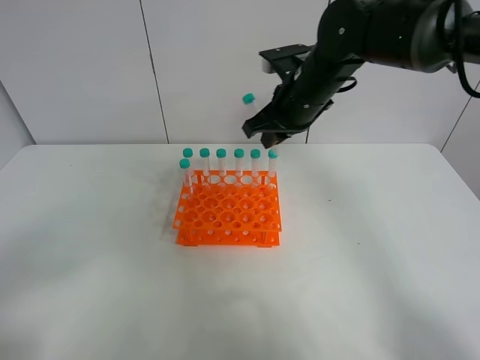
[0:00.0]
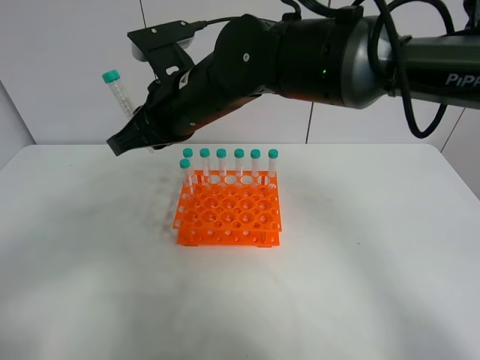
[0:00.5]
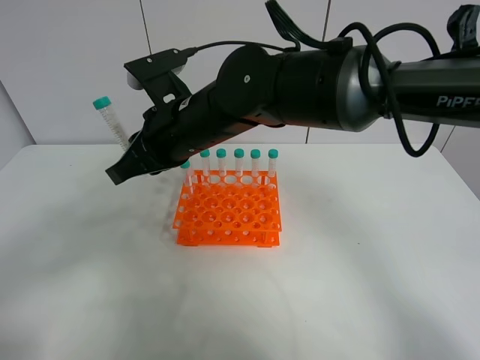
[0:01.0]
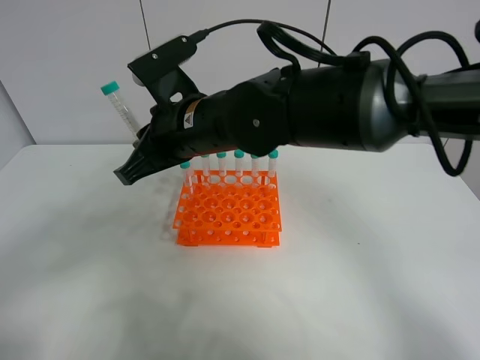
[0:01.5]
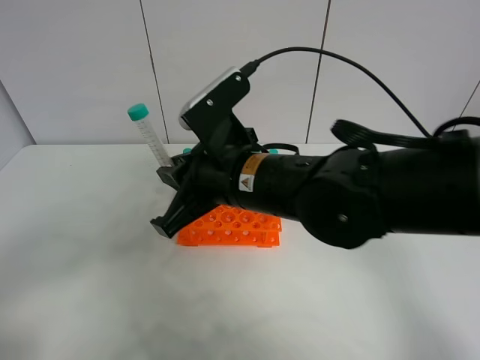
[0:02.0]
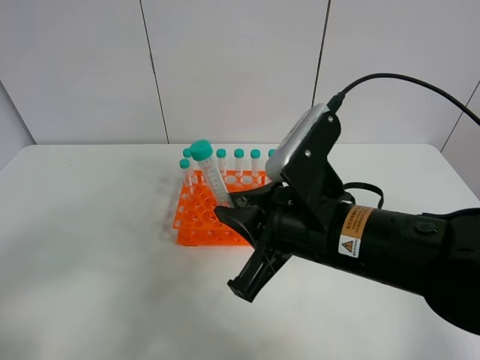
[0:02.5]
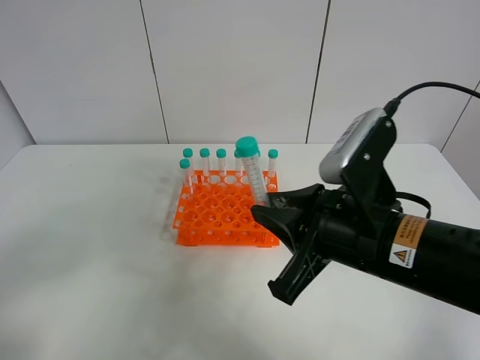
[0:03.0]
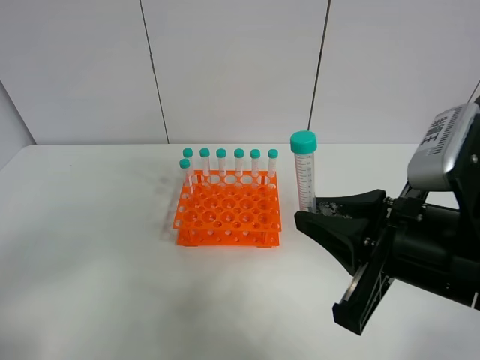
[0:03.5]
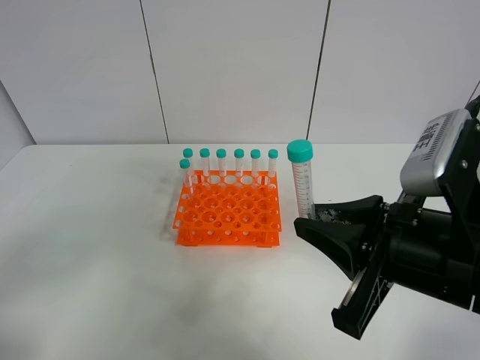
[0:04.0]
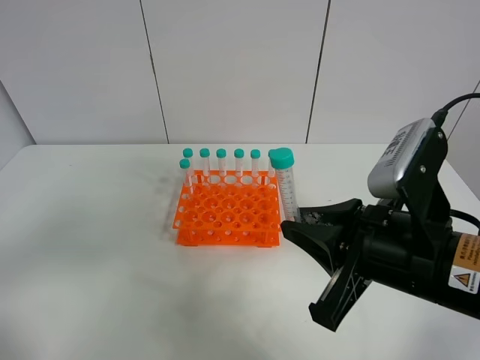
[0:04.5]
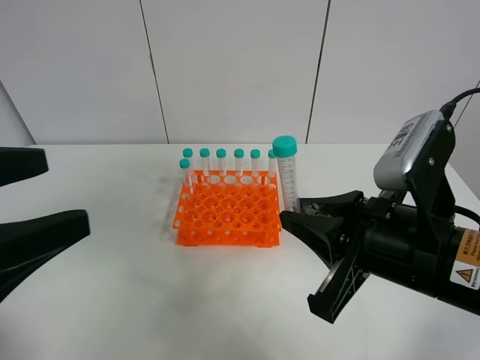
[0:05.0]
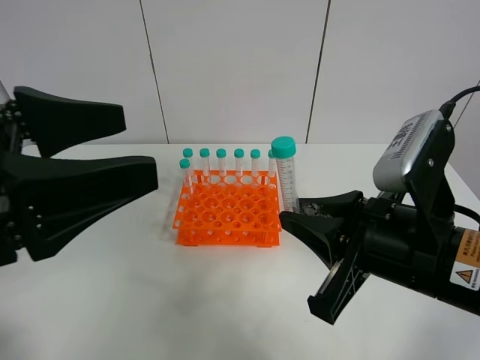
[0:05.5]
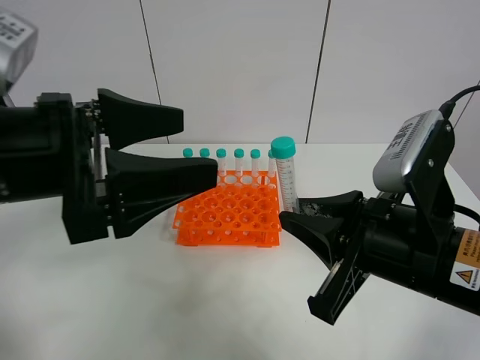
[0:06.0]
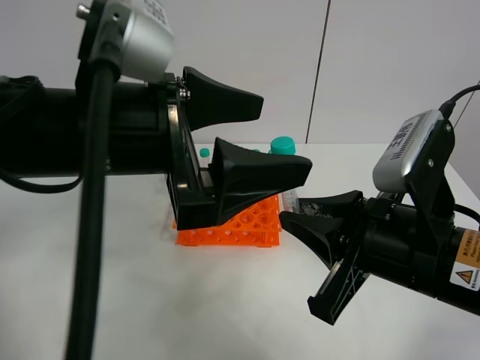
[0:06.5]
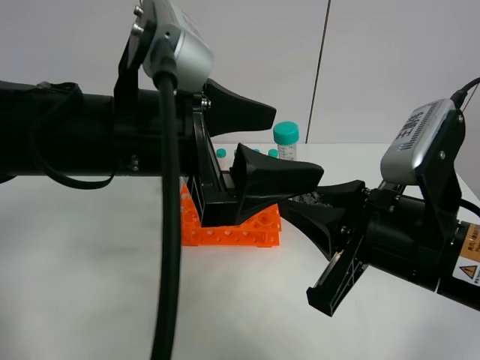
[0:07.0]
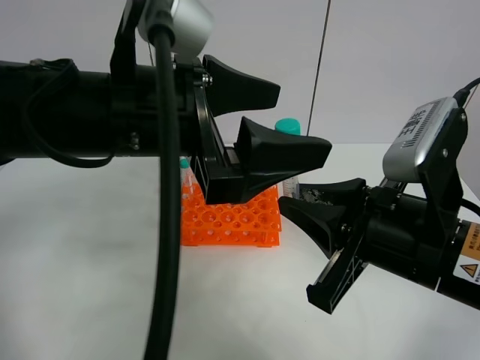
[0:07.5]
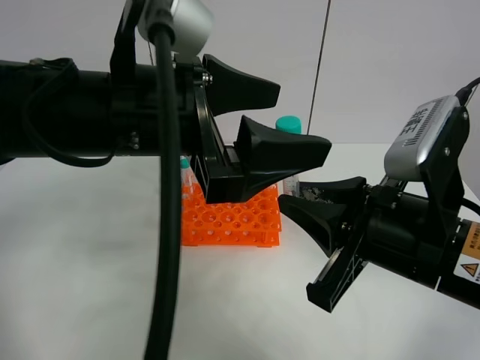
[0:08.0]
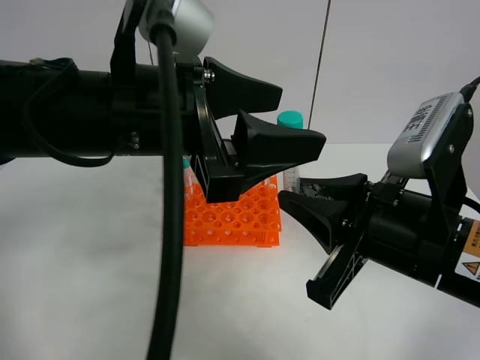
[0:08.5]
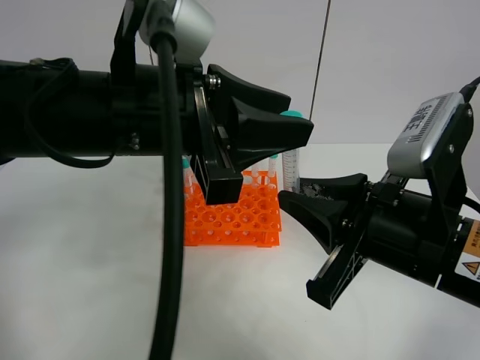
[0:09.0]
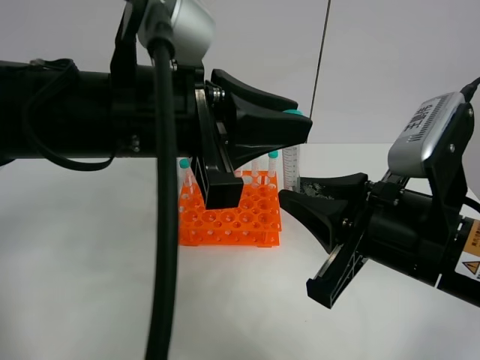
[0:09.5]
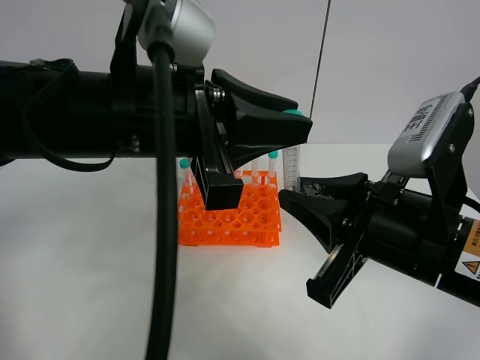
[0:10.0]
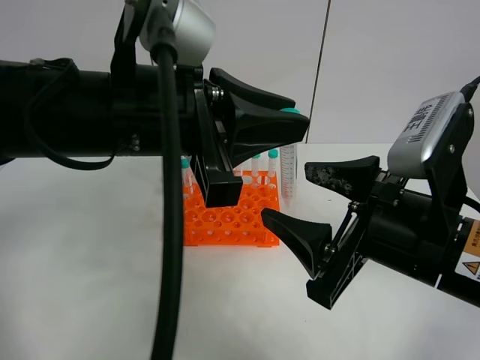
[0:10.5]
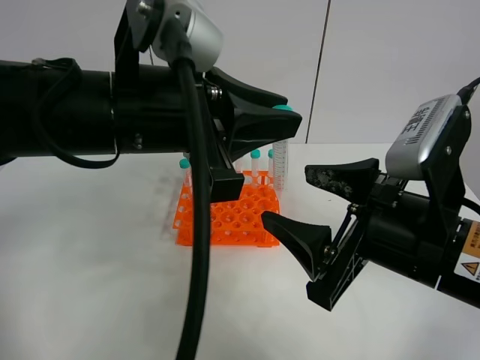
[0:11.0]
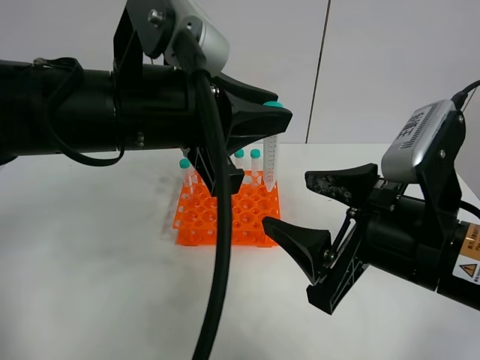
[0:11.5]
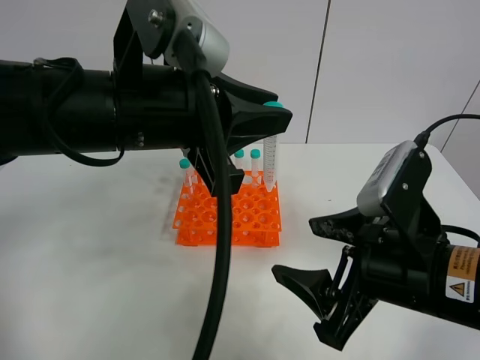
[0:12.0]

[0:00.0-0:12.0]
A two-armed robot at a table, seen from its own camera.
Task of the whole recording: Put the test tube on the table back onto the test tube rack.
Step, 0.0 to 11.5 s: Move the test tube from the right gripper to the left gripper.
0.0 to 2.0 s: The right gripper goes about 15 cm backward and to the left.
2.0 to 4.0 s: The right gripper is displaced to the right and backward by roughly 20 cm.
4.0 to 6.0 s: The left gripper moves forward and to the right, roughly 20 cm.
6.0 to 8.0 s: The left gripper goes approximately 10 cm to the right.
8.0 to 10.0 s: The left gripper closes its fingers.
10.0 to 12.0 s: The right gripper opens up.

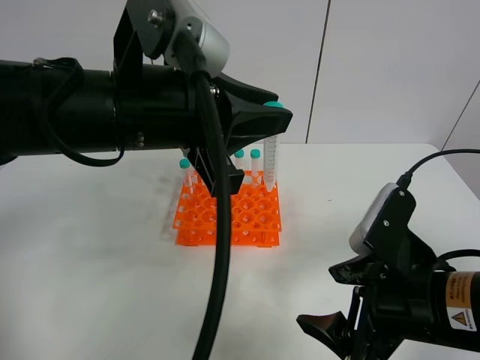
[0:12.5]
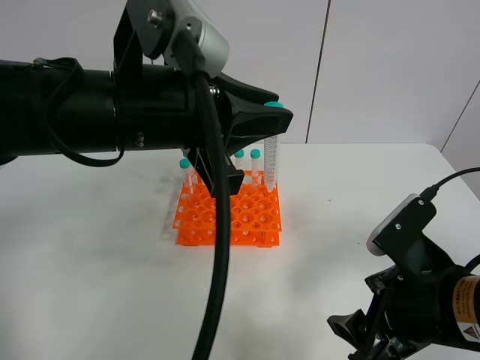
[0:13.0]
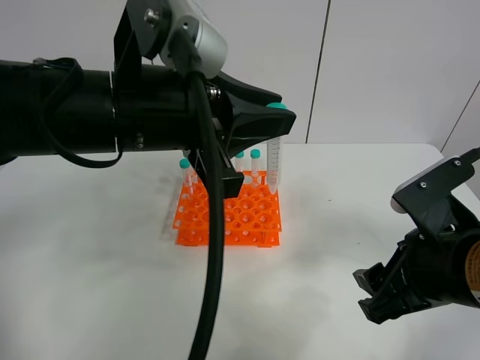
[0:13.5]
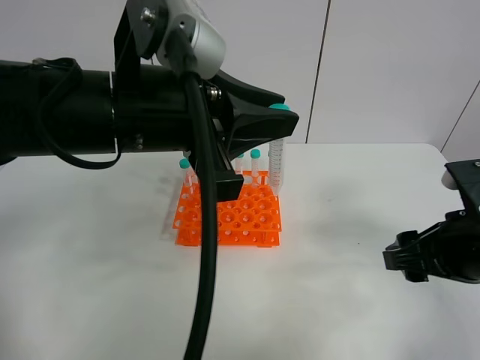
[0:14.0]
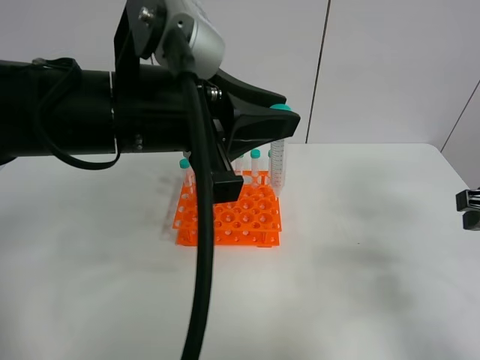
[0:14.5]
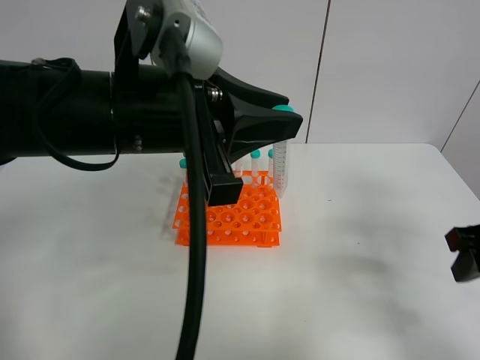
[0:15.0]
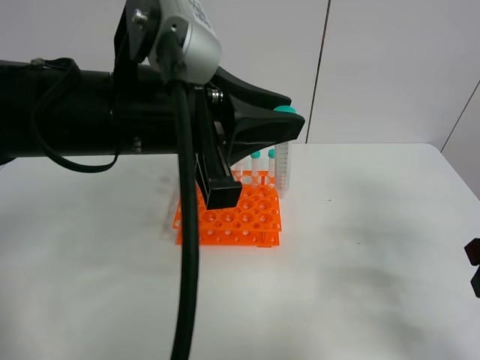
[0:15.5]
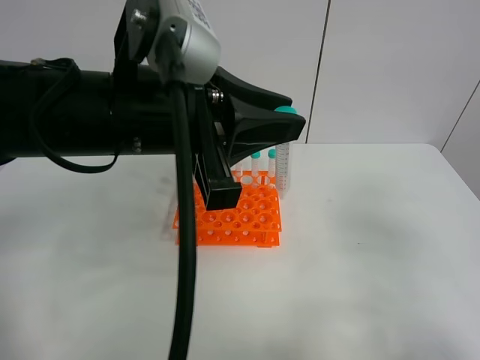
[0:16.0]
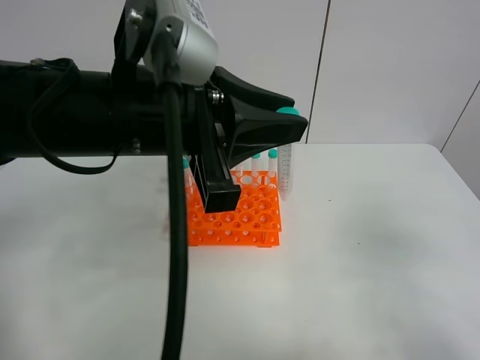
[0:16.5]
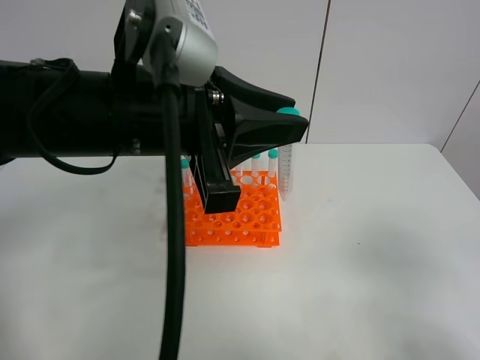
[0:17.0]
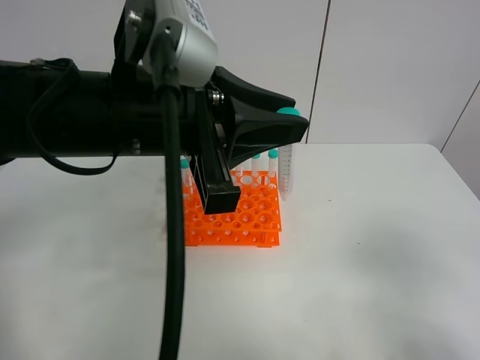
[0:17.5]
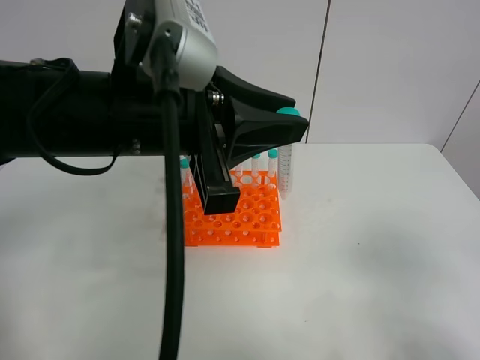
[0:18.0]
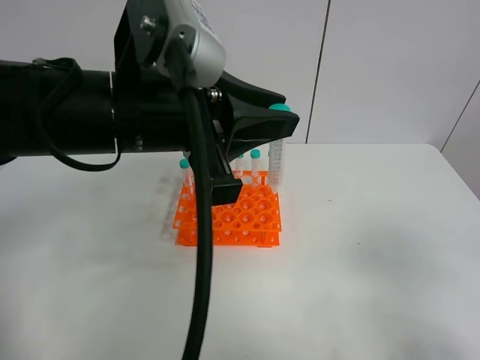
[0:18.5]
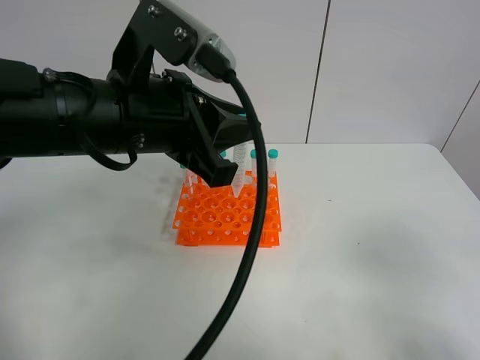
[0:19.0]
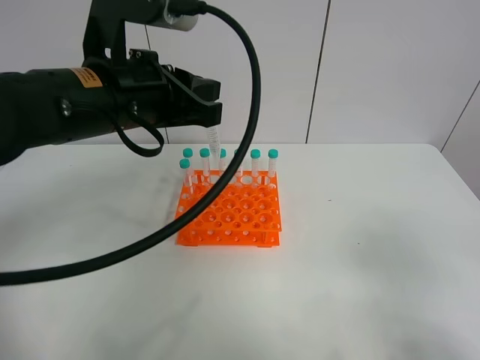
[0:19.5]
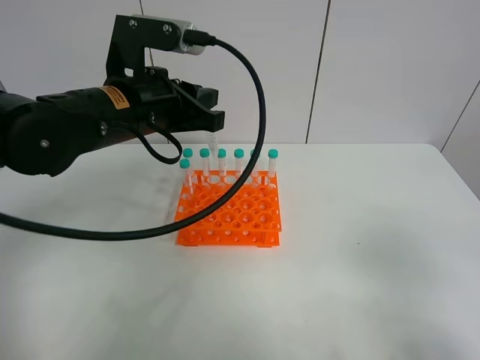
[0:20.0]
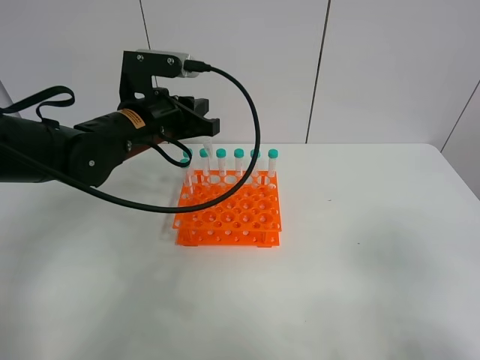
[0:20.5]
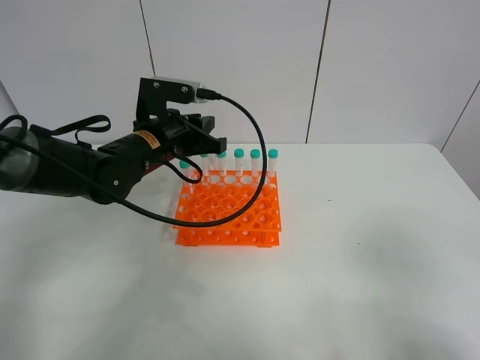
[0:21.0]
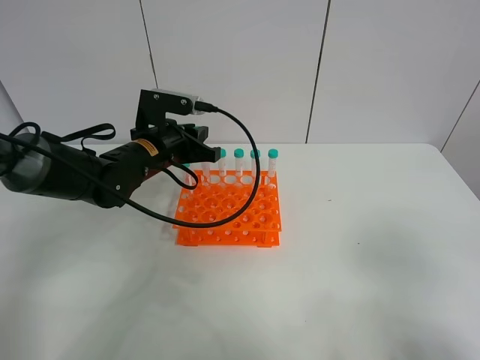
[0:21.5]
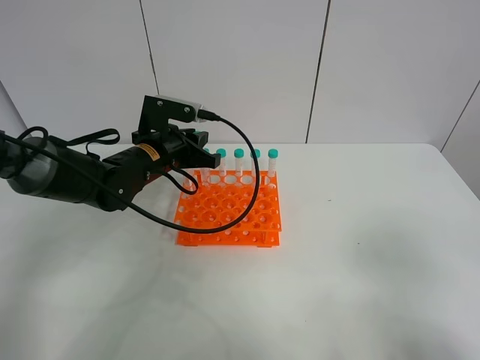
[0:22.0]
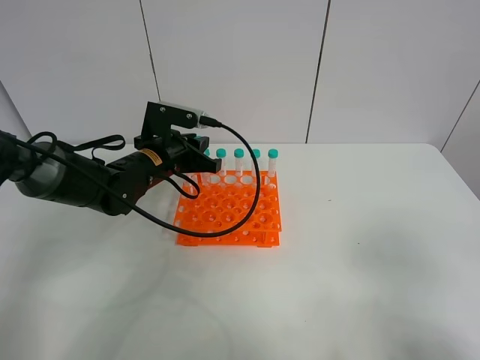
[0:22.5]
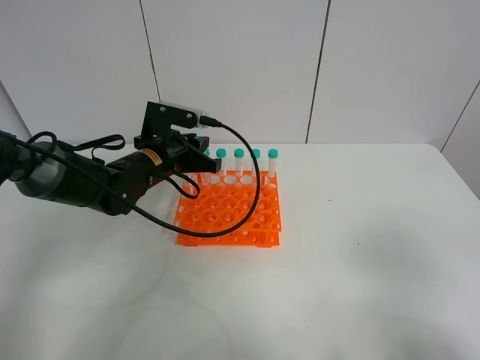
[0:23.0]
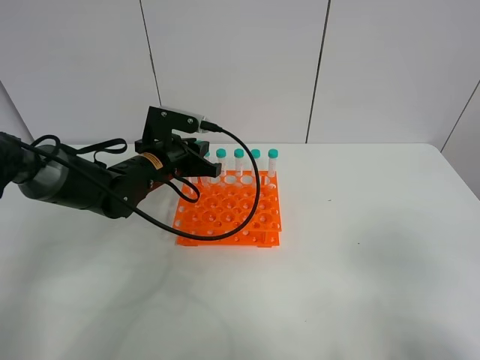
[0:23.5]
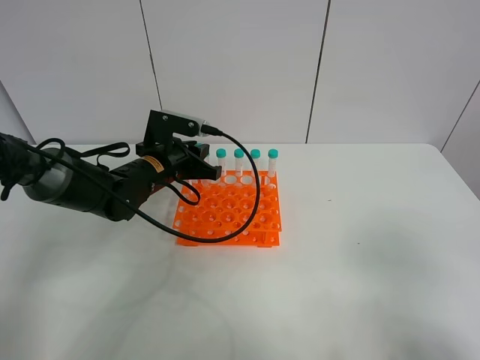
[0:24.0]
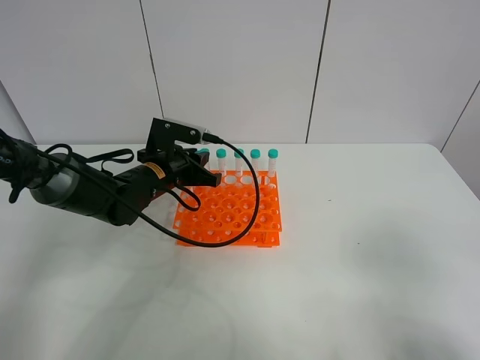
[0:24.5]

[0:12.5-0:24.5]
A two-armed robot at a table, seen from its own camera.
Task of the whole recording: Put the test tube on the table back onto the test tube rack.
12.5 to 14.5 s: The right gripper is displaced to the right, forward and upward by roughly 15 cm.
14.5 to 16.5 s: The right gripper travels backward by approximately 15 cm.
16.5 to 18.5 s: The grippers move only a little.
18.5 to 20.5 s: The left gripper moves forward and downward, roughly 15 cm.
20.5 to 22.5 s: The left gripper travels downward by about 5 cm.
22.5 to 24.5 s: The grippers move only a little.

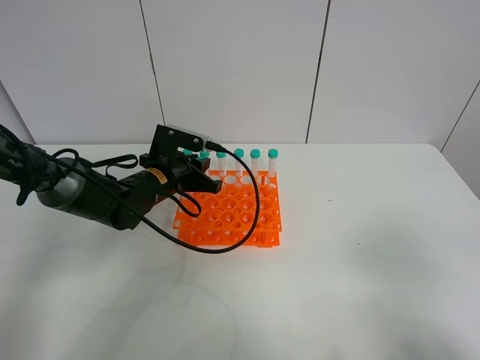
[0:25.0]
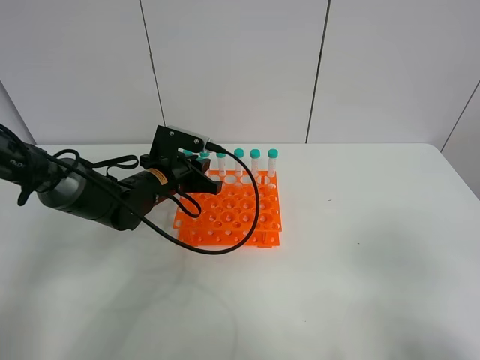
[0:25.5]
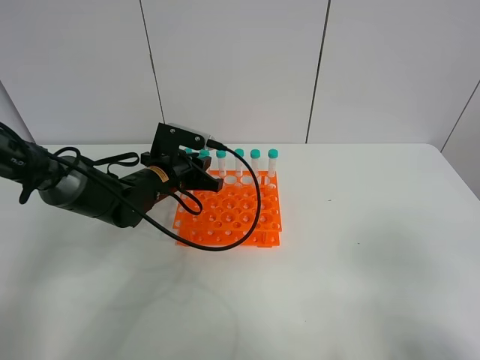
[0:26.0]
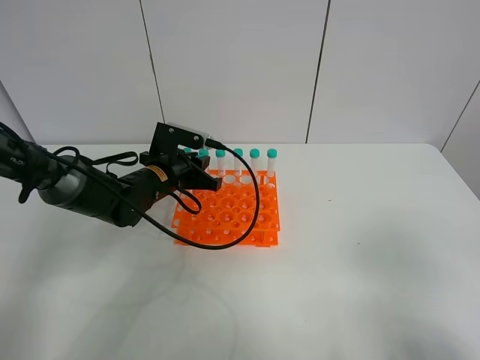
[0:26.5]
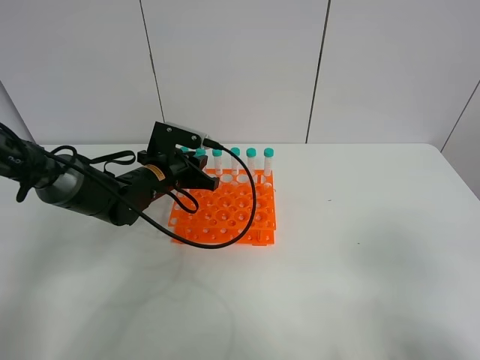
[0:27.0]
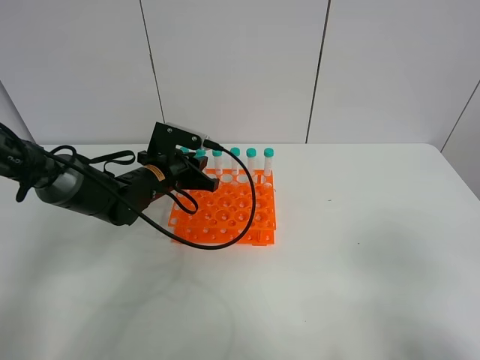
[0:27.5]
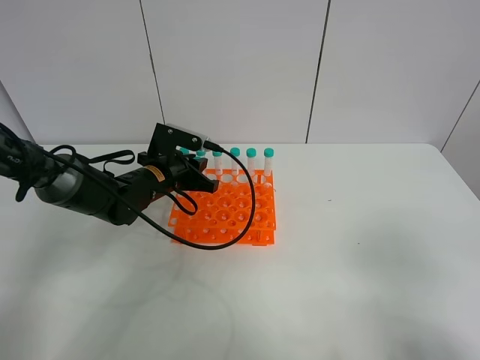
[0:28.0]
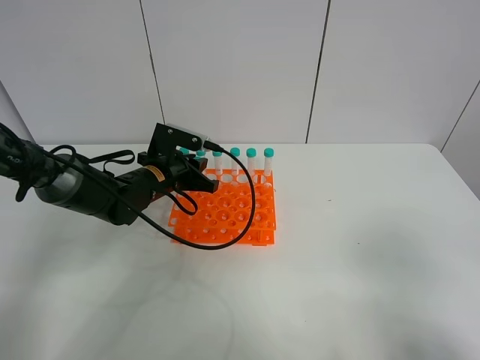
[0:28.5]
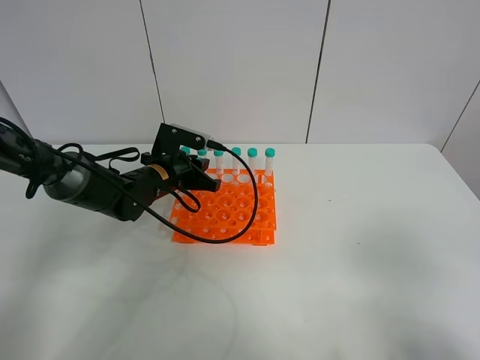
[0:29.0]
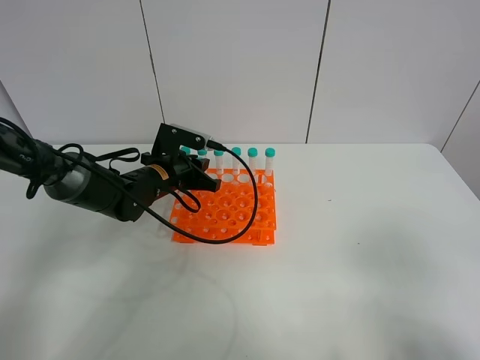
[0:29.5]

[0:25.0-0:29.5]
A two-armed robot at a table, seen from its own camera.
Task of the whole recording: Put the test tube on the table back onto the test tube rack.
25.0 to 27.0 s: Both grippers stay about where they are.
27.0 to 29.5 s: Both grippers stay put.
